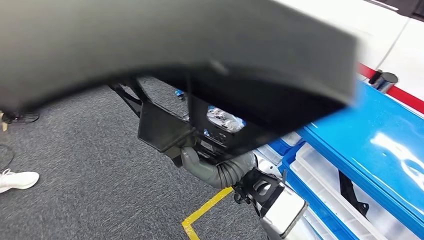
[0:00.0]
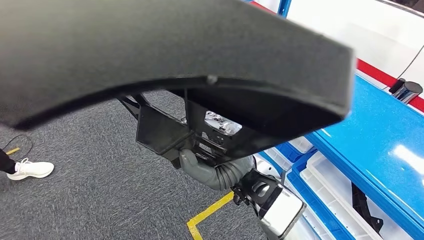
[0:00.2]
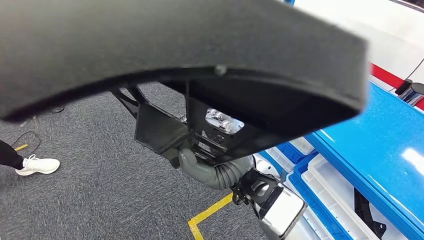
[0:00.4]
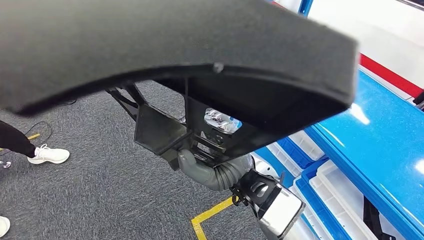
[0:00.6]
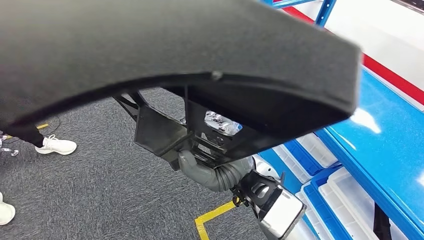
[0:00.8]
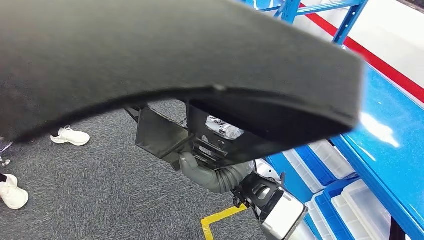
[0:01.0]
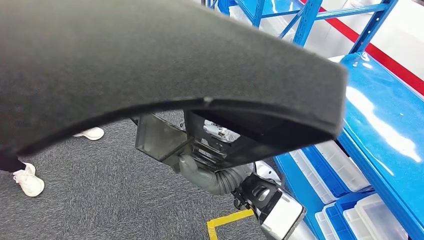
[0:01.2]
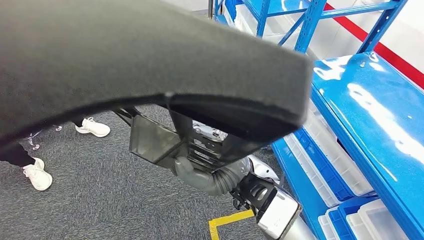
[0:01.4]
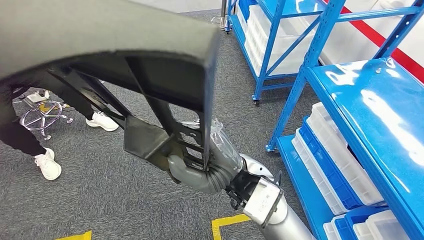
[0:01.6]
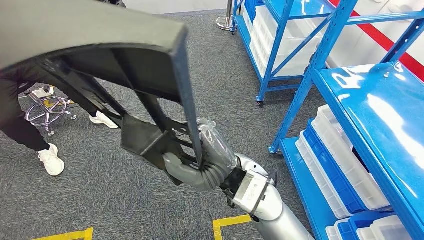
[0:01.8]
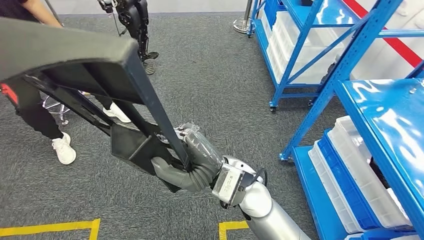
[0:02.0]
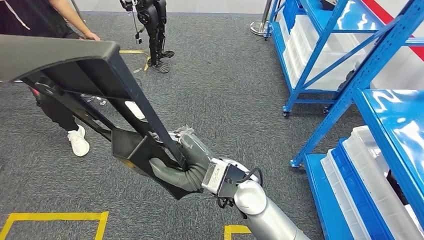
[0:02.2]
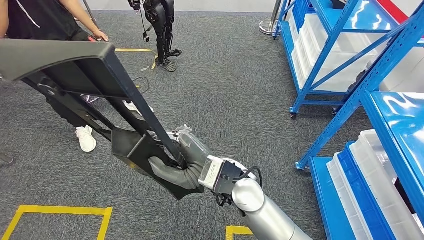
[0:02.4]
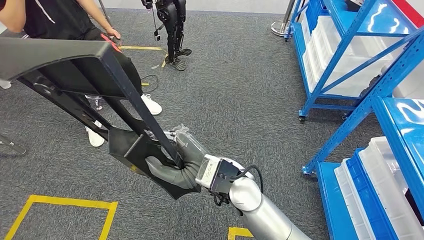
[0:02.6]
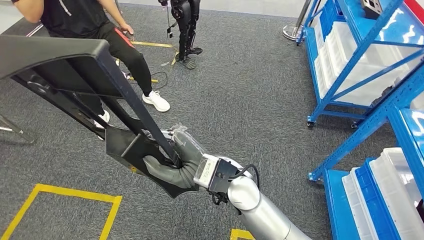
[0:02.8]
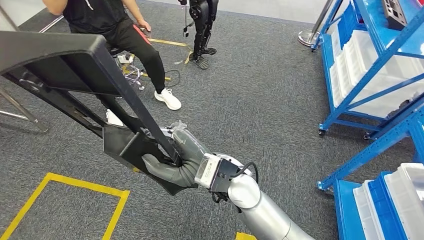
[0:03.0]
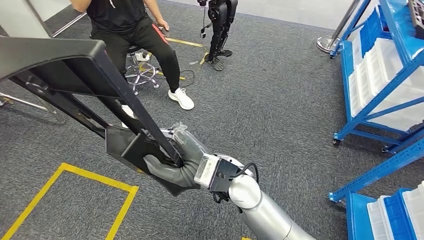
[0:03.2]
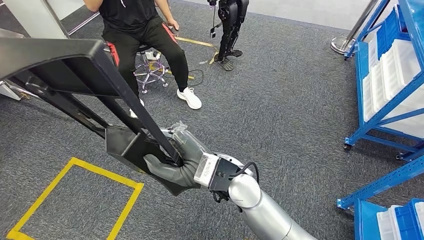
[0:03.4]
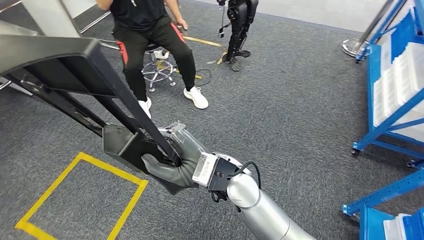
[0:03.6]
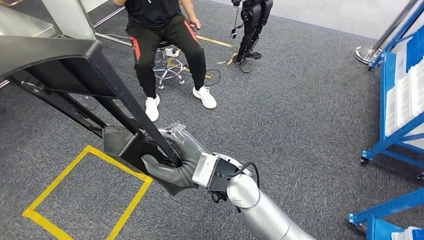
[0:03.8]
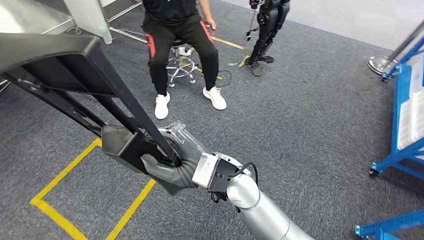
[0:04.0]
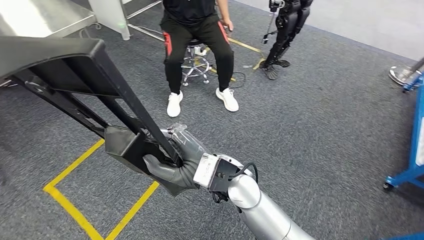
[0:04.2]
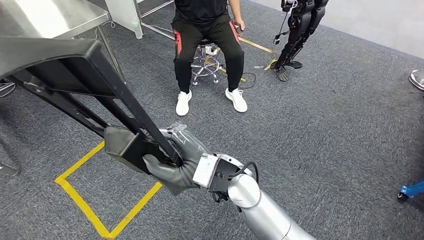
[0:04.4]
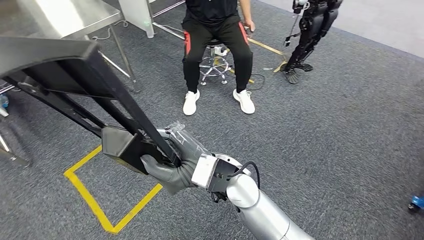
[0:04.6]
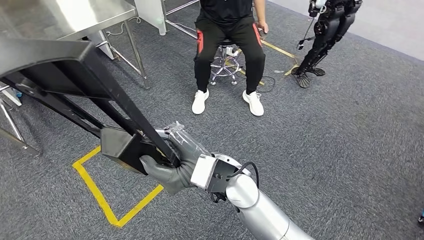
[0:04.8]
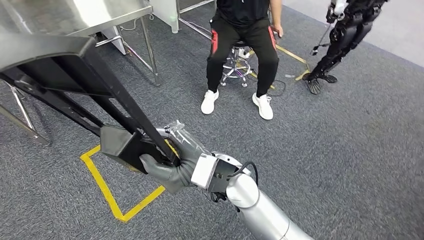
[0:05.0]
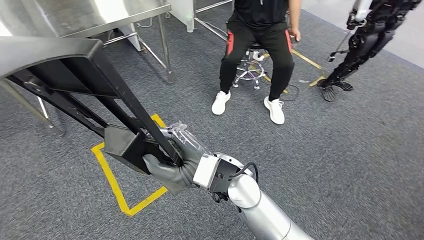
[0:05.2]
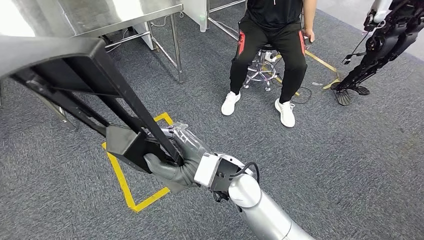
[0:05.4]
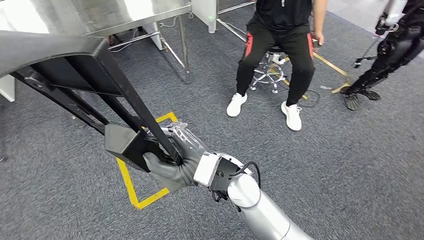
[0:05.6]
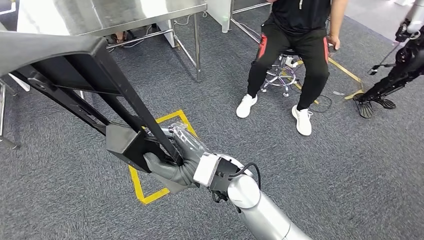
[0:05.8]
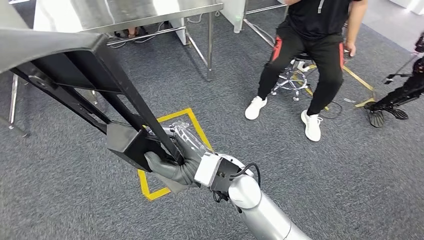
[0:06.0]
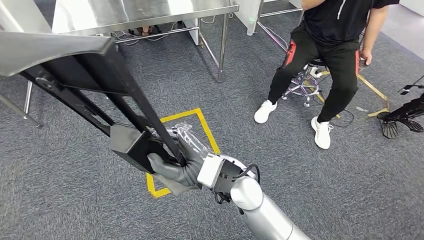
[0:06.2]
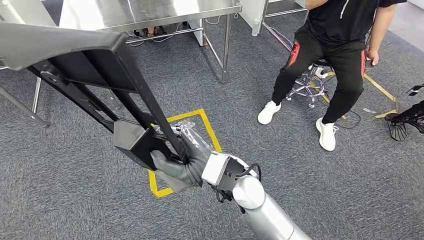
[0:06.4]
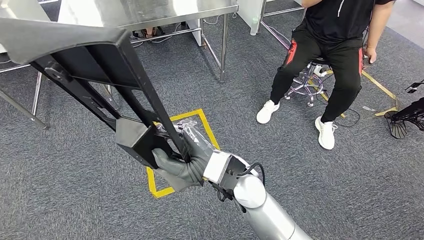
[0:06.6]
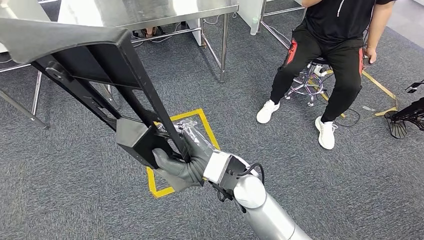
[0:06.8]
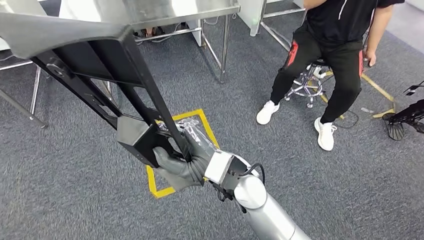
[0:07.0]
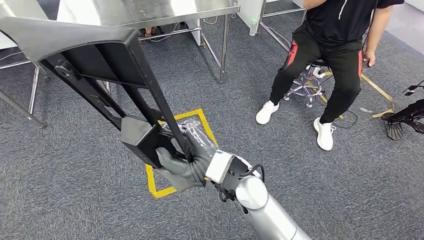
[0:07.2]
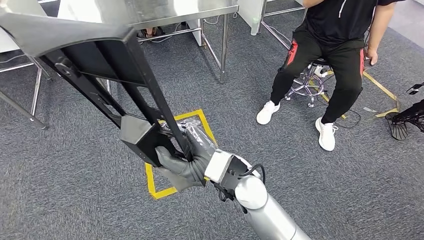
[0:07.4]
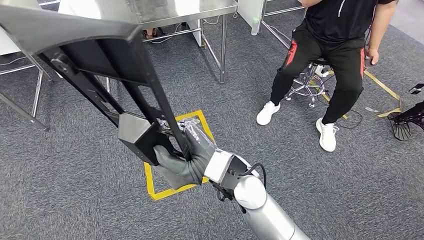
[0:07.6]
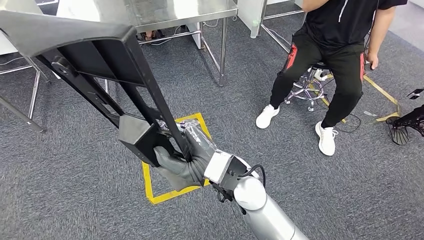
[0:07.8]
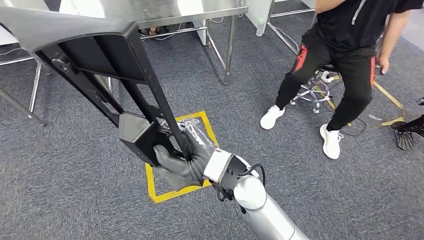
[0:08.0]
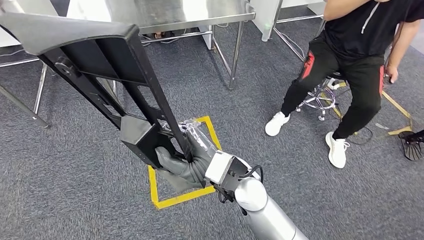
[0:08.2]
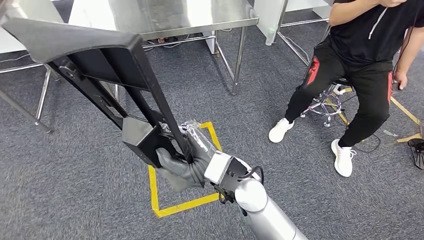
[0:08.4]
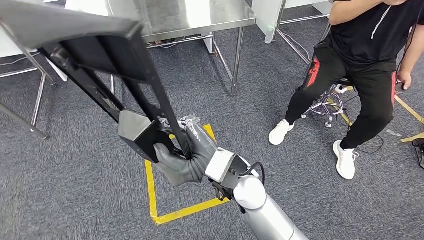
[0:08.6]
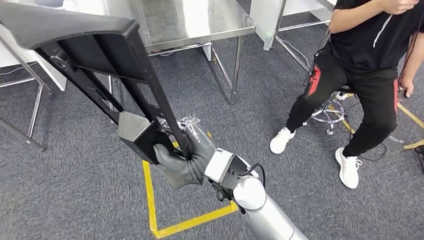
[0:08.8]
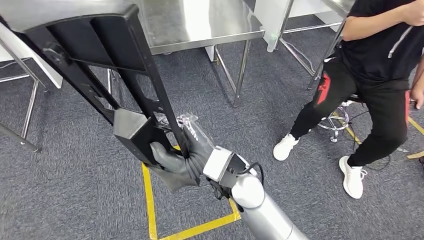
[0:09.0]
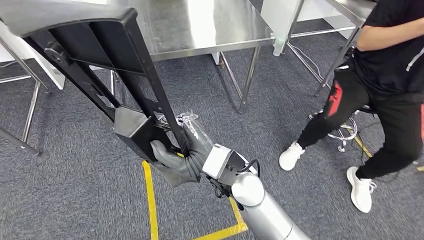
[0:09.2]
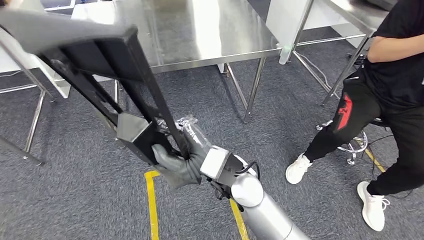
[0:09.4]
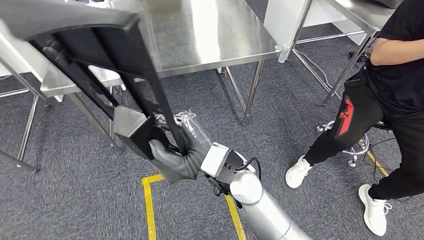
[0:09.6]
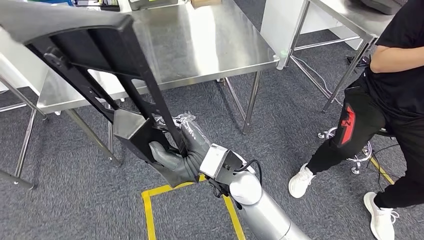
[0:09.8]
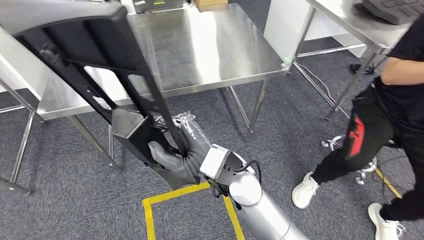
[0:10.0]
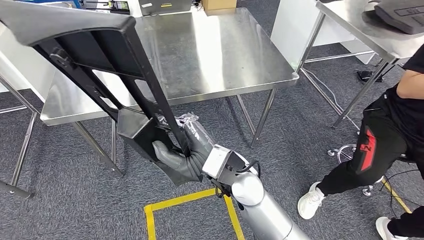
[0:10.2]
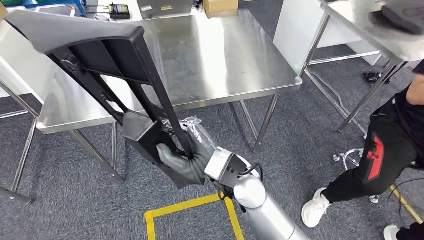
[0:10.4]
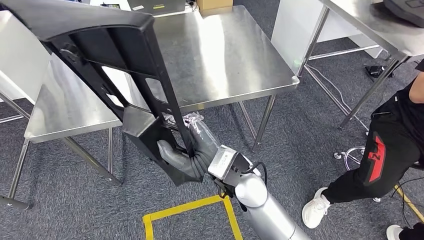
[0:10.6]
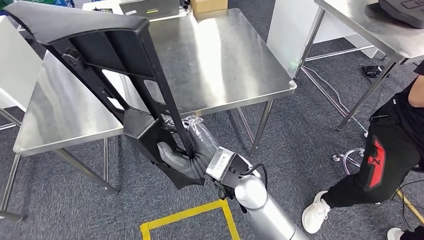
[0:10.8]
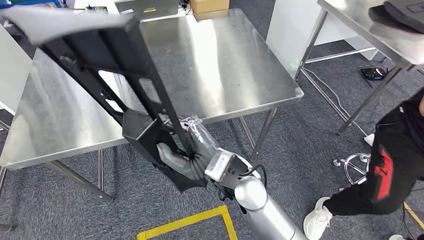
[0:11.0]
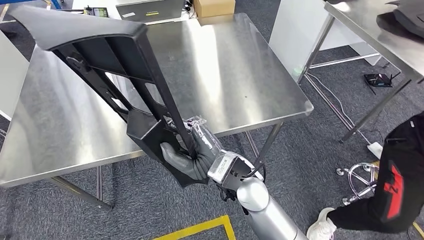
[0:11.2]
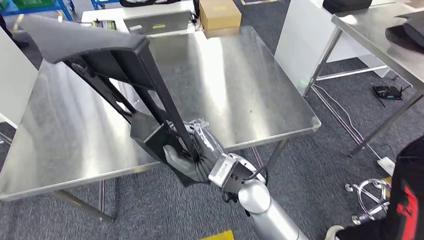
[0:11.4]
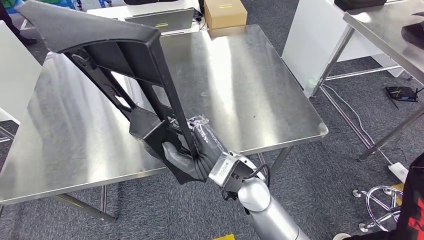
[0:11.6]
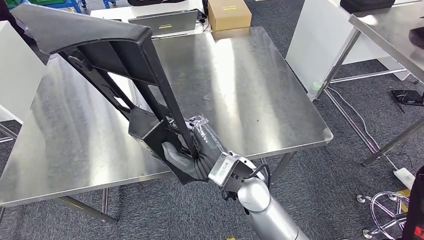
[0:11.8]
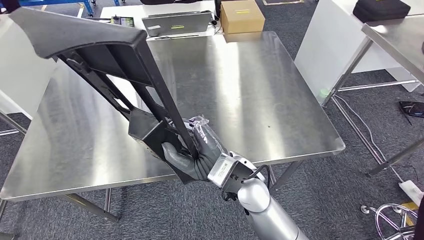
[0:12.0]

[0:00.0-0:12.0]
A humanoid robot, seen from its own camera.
Step, 0:00.0 to 0:10.8: Move the large material to the front of the workbench.

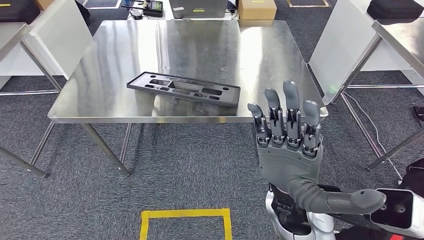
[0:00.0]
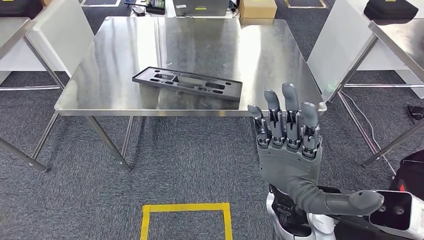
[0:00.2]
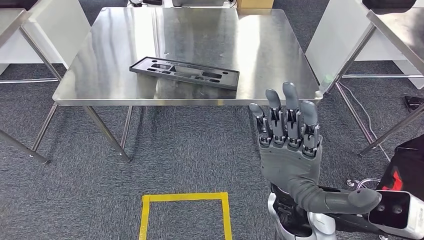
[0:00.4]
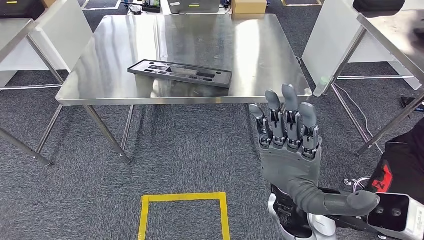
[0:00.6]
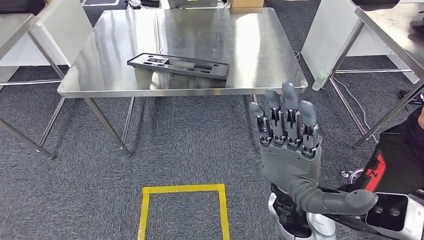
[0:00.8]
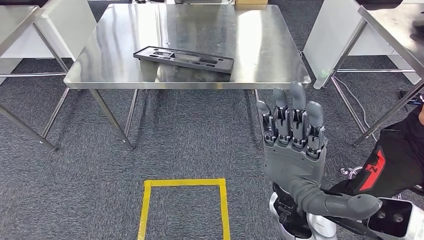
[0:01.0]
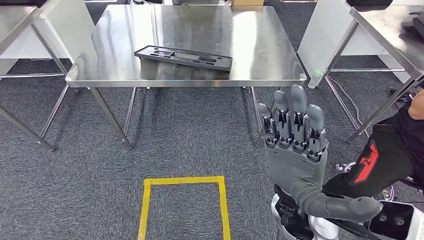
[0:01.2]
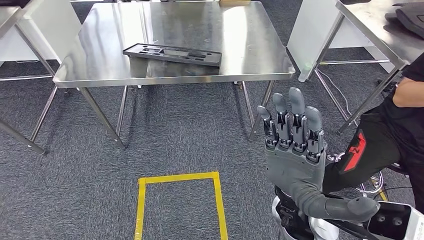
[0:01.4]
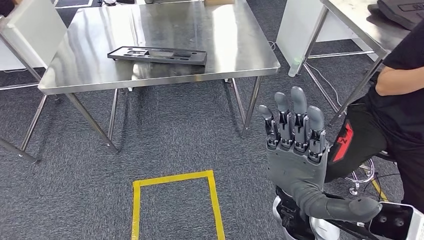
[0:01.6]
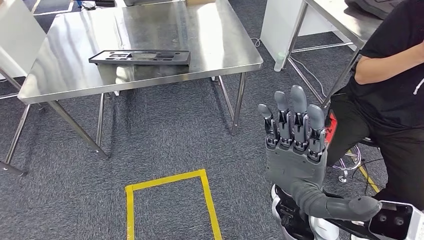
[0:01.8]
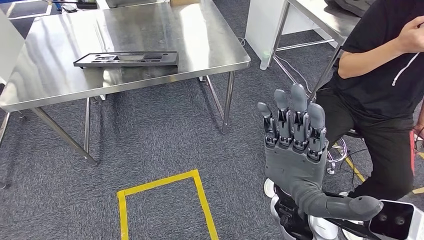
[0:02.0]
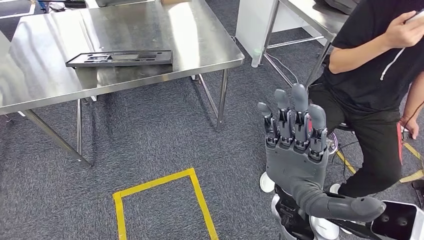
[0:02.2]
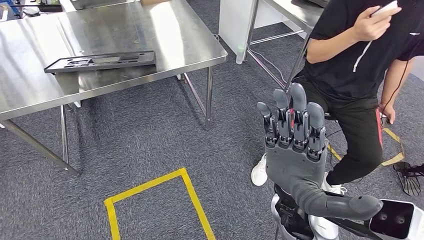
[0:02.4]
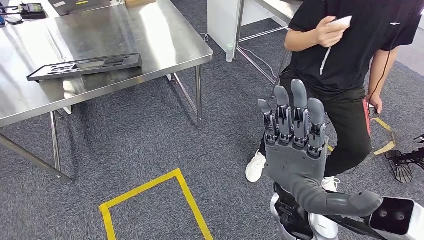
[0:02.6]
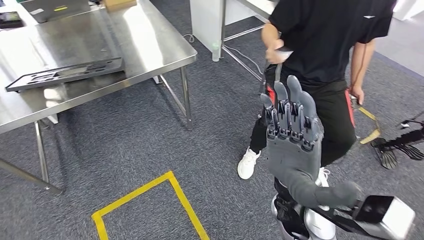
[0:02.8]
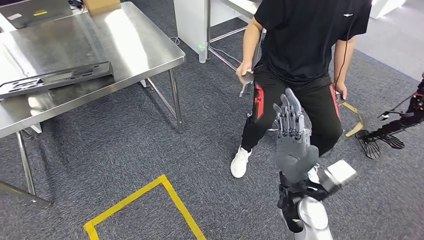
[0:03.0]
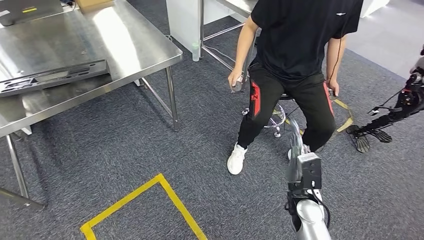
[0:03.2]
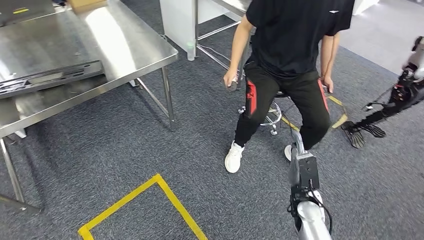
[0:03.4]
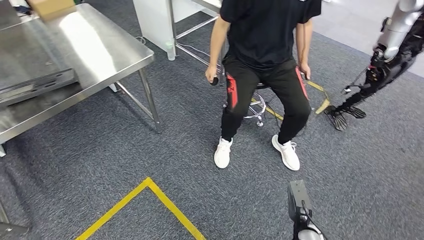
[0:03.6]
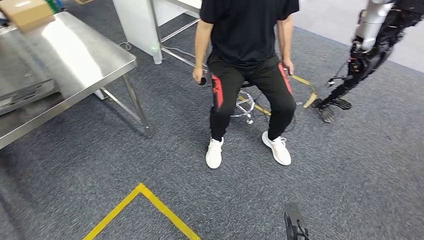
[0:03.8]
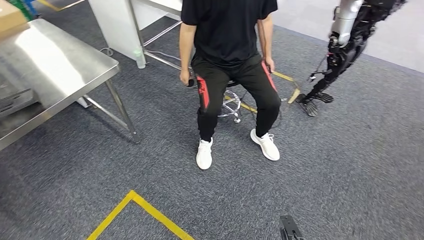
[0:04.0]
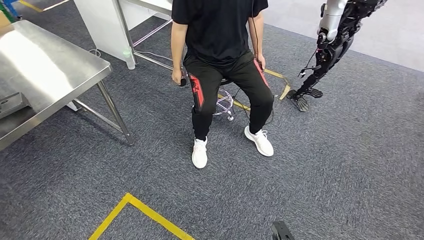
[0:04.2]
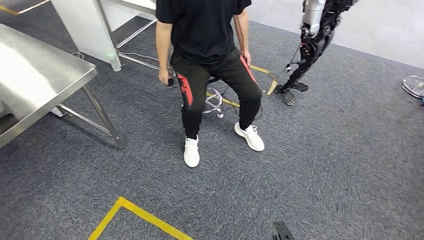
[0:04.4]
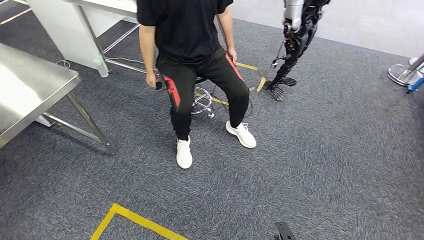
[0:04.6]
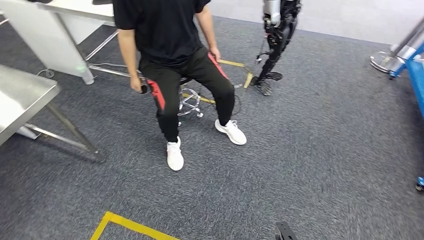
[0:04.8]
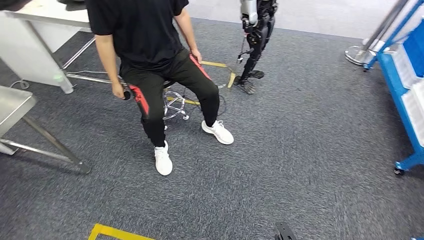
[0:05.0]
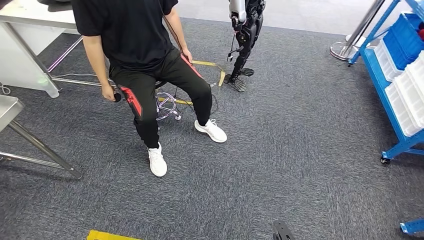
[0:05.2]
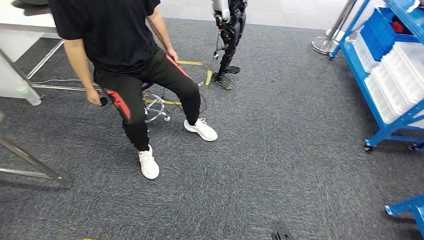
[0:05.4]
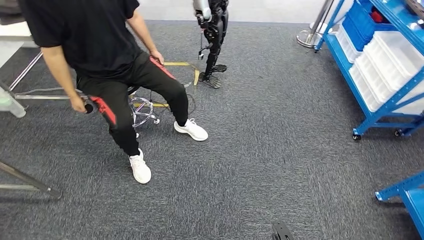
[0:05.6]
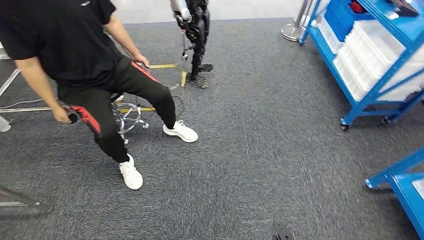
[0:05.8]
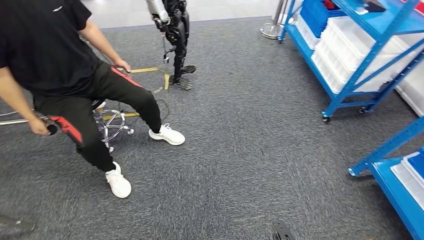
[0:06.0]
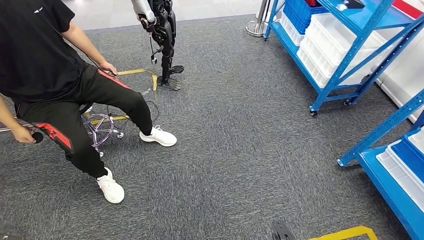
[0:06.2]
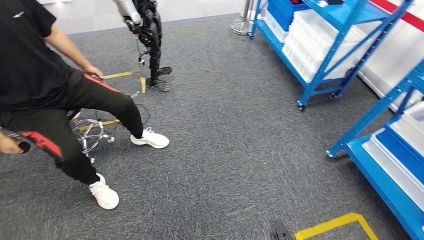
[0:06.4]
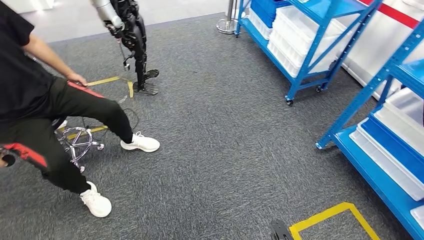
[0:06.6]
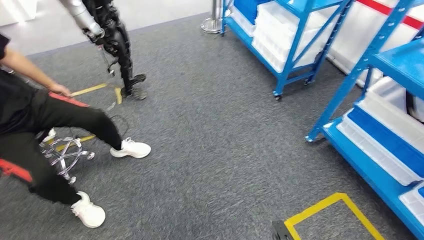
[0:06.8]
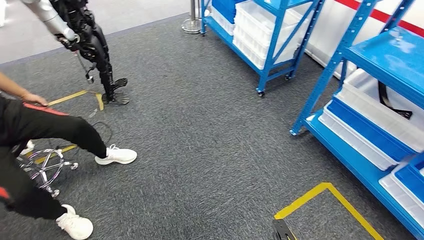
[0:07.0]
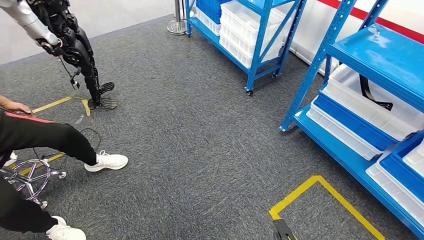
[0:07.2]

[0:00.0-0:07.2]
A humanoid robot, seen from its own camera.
Step, 0:00.0 to 0:02.4: Insert the large material into the corresponding hole on the workbench.
